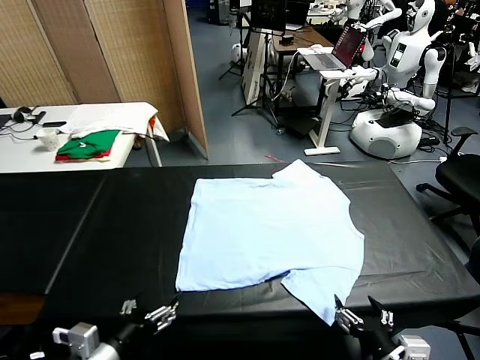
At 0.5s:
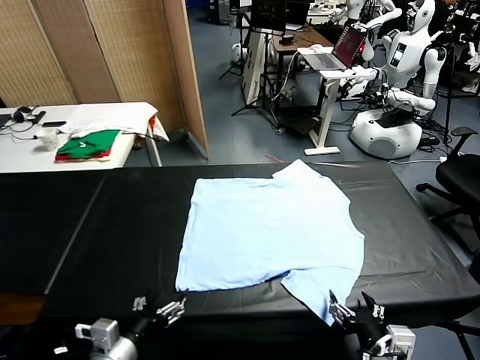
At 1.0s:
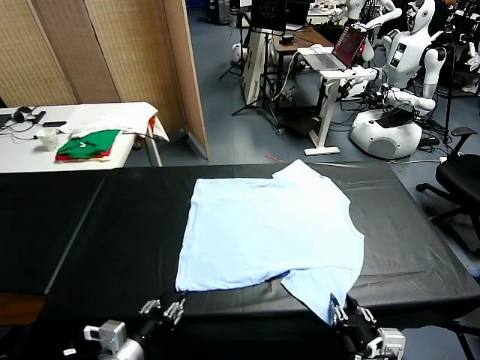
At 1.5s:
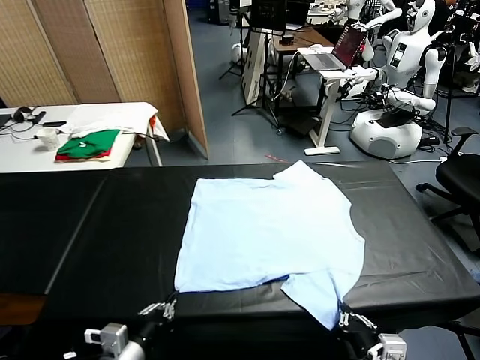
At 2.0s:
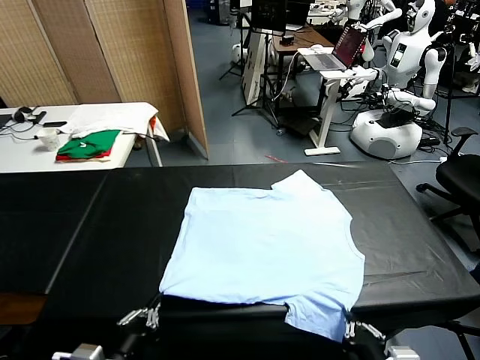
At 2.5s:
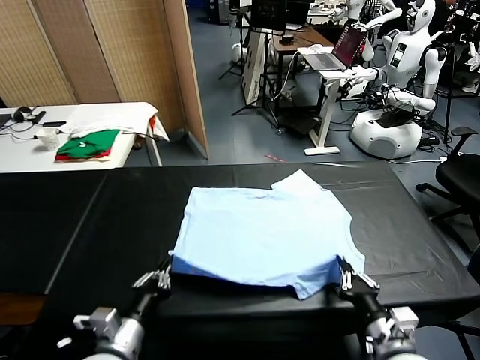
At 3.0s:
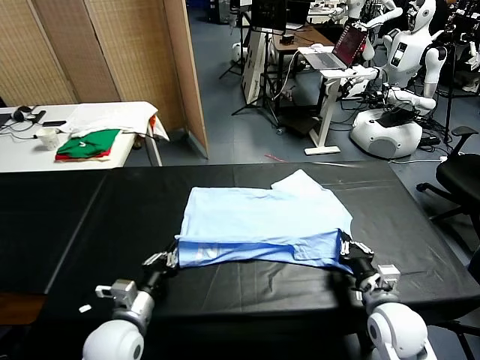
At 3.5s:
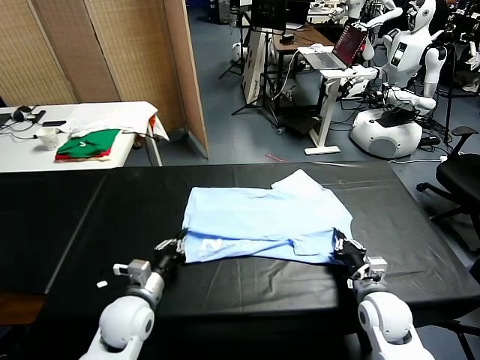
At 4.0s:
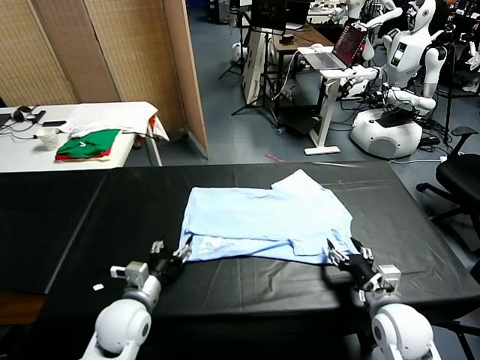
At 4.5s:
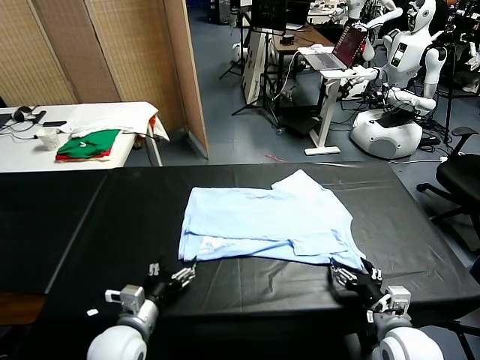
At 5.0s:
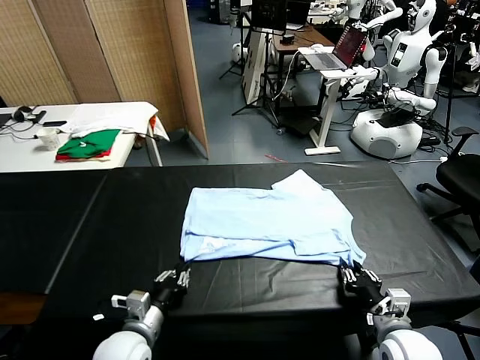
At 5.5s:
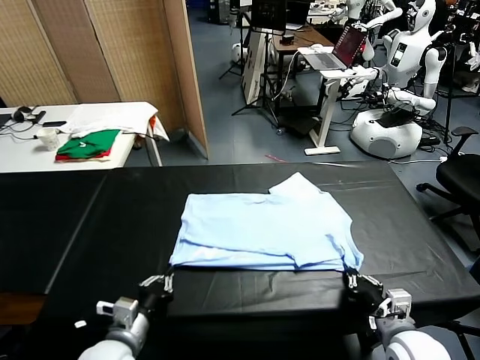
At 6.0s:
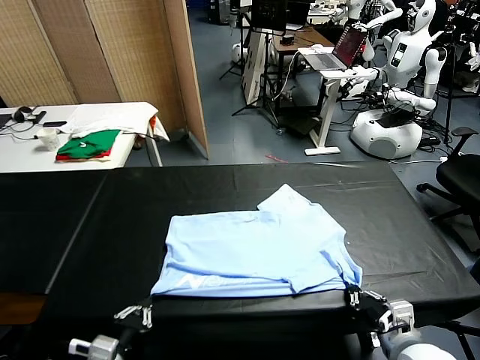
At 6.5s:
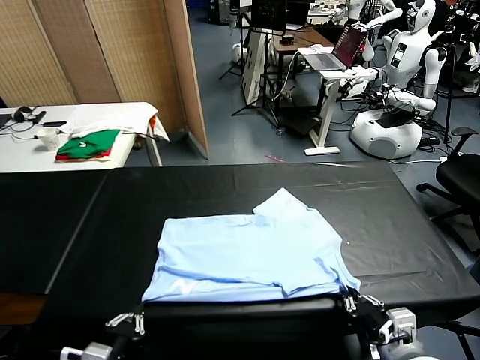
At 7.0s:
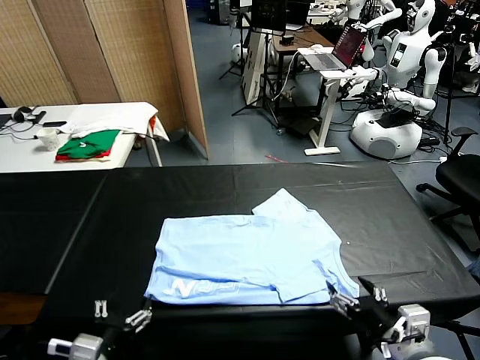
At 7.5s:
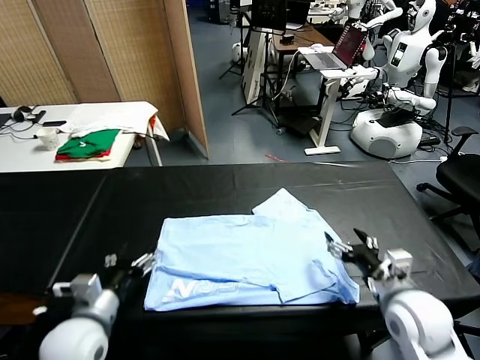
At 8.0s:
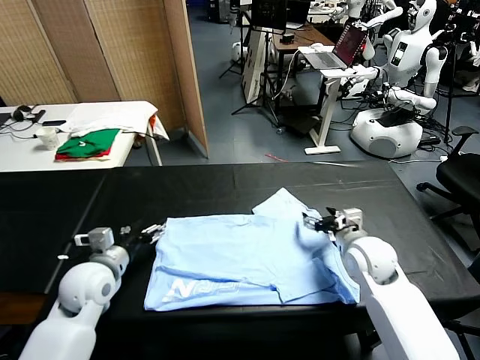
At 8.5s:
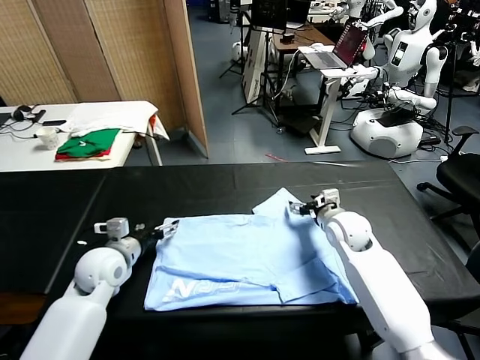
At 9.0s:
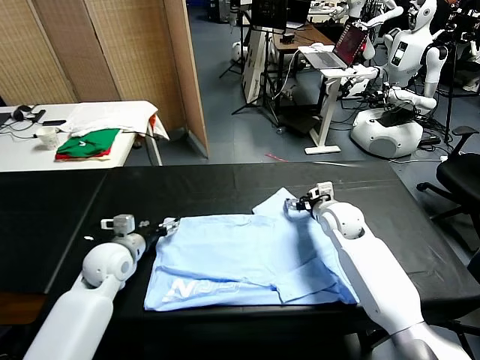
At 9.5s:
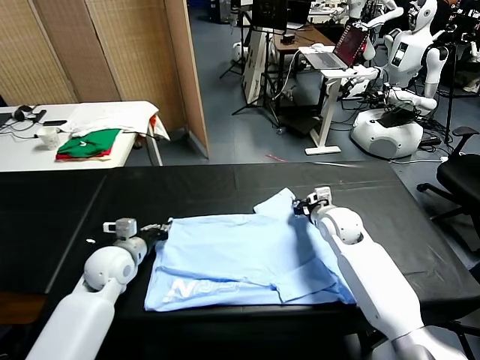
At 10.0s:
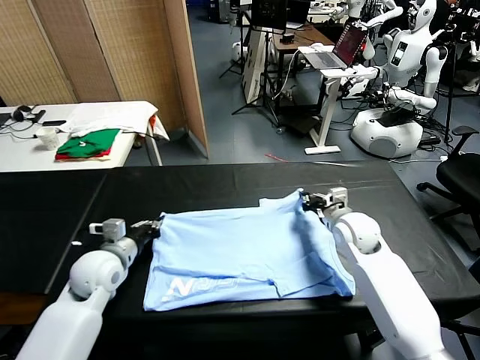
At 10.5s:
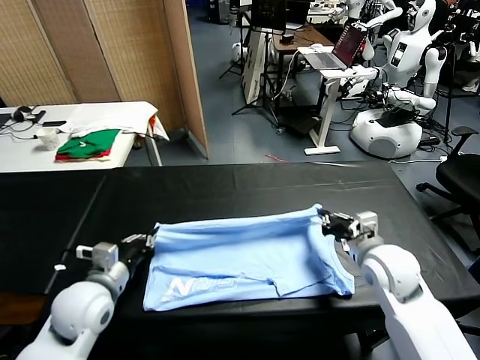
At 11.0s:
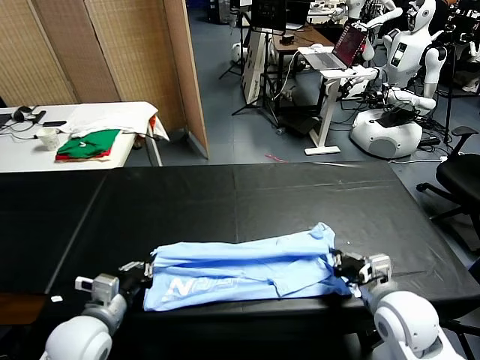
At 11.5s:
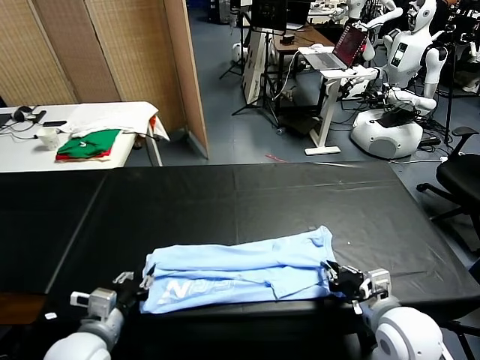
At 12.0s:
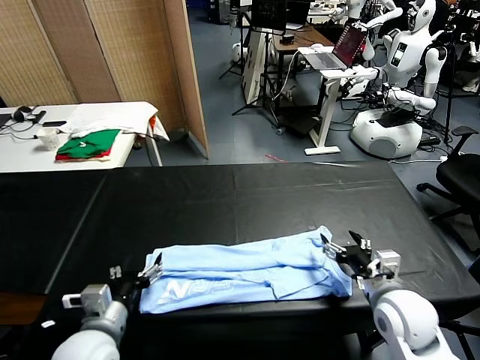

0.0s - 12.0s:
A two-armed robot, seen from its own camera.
Task of the whole recording: fold and organize the clothes.
Step, 0.0s - 1.0s: use both grippers simultaneously to clamp the lower edge of the clothing fabric.
Step, 1.5s - 4.0s: use both grippers to drag the lower edge of the fabric forward and fold it over the upper edge.
Step, 4.5s - 6.5s: Drag the clothes downward with both gripper.
Step, 7.0s - 9.5s: use both grippers simultaneously to clamp the upper edge of the clothing fabric.
Step, 10.0s - 11.5s: use both grippers to drag the upper edge of the fabric backward and fold it over the lower edge.
2.0s - 4.0s: The right gripper is displaced forward, downward and to the right by about 15 cm, and opens up, while the left gripper is displaced forward and downward by some 15 cm, and opens.
4.0s - 6.0s: The right gripper goes roughly 10 cm backward and upward, and closes up; the left gripper moves backward, roughly 15 cm, and closes.
6.0s - 8.0s: Both grippers move forward, approximately 25 cm. The left gripper opens its fingers. The right gripper opens its fingers.
8.0s - 10.0s: The left gripper closes up. Meanwhile the right gripper travels backward by roughly 5 cm, and closes up.
10.0s - 12.0s: The grippers both shift backward by approximately 10 cm. The left gripper opens its fingers, while the right gripper opens up.

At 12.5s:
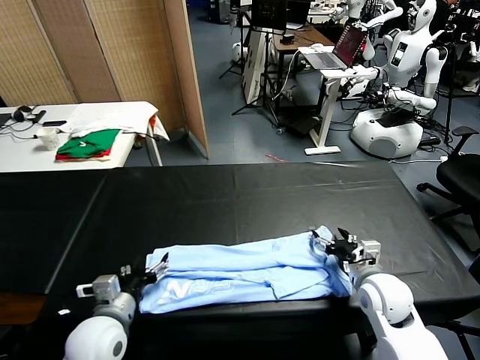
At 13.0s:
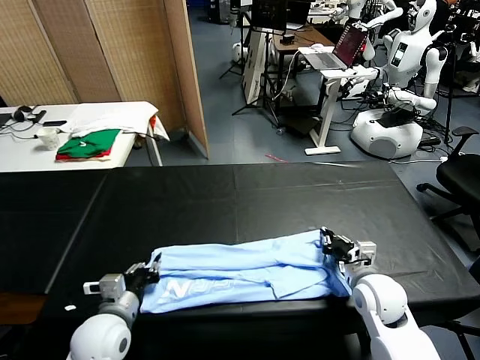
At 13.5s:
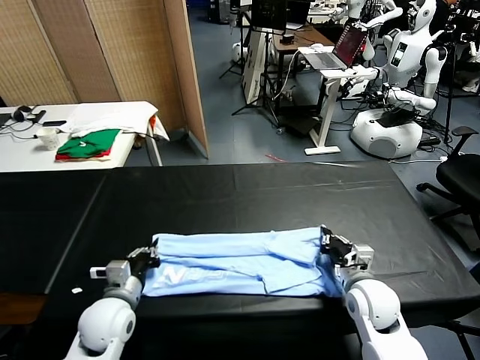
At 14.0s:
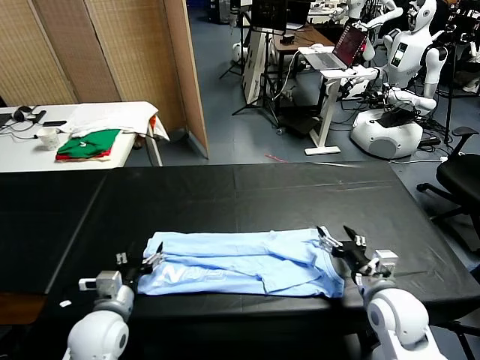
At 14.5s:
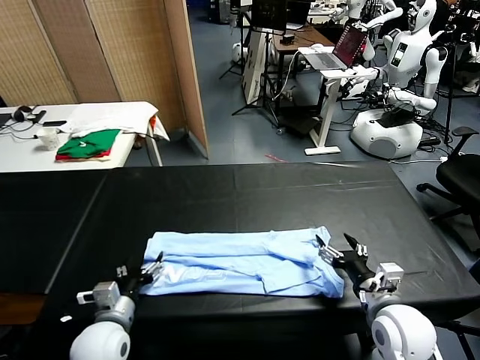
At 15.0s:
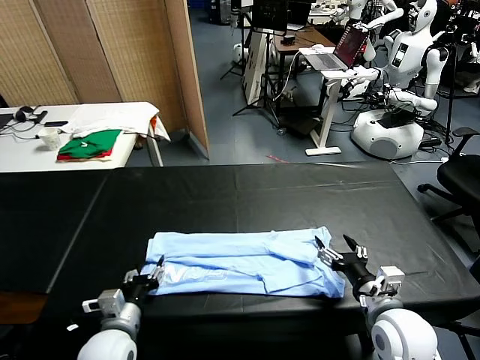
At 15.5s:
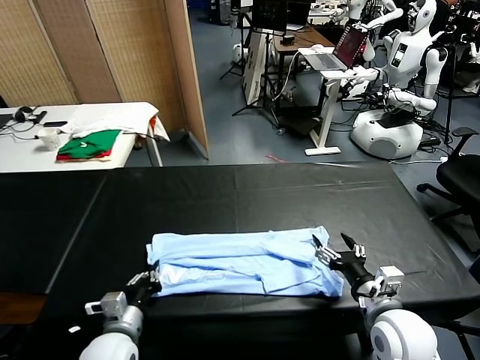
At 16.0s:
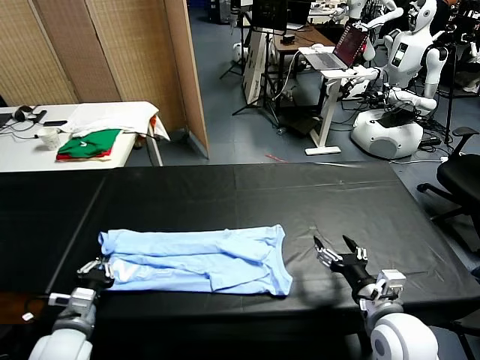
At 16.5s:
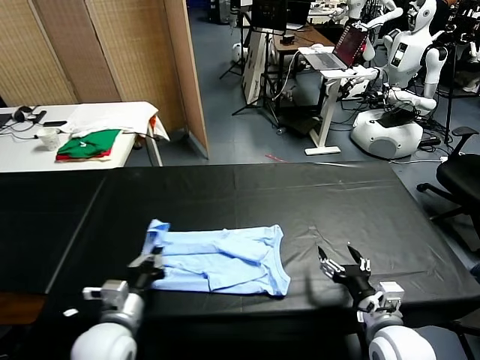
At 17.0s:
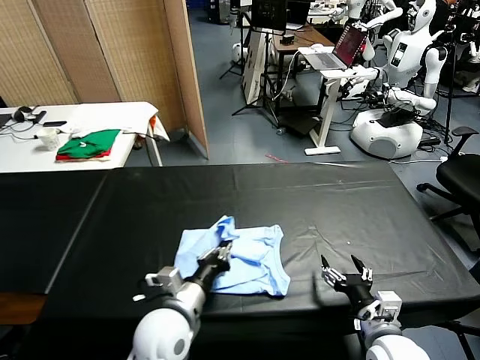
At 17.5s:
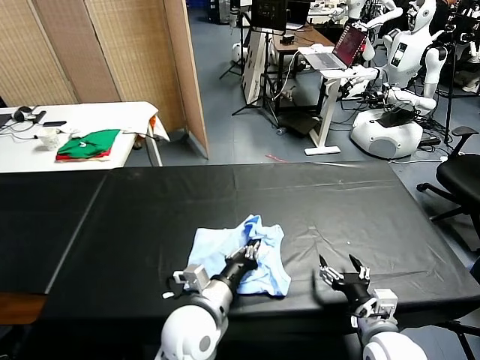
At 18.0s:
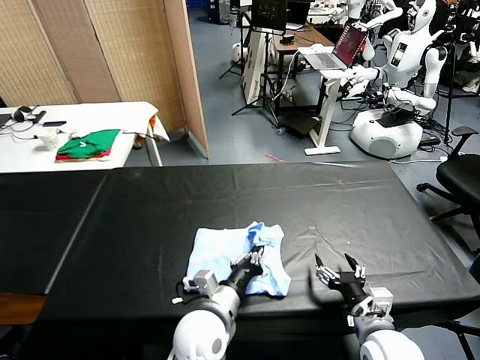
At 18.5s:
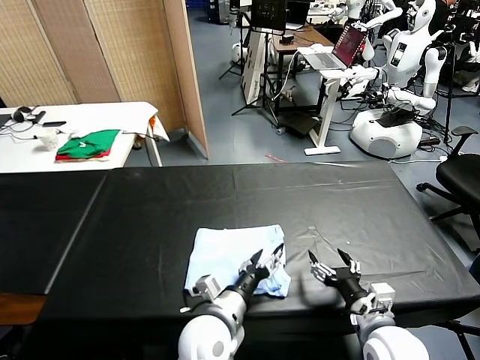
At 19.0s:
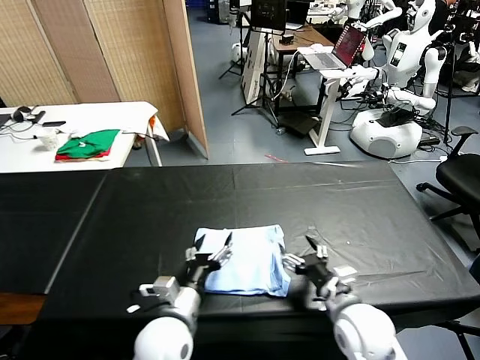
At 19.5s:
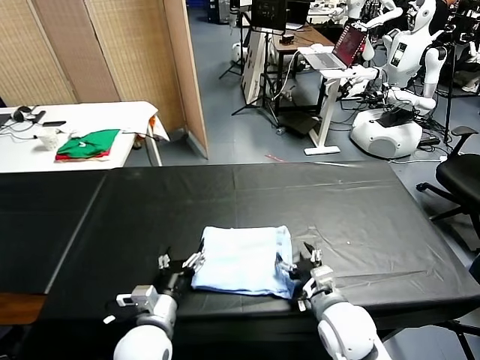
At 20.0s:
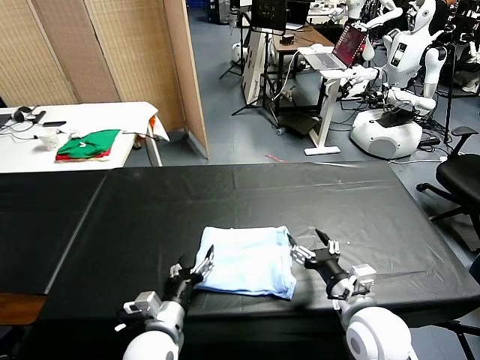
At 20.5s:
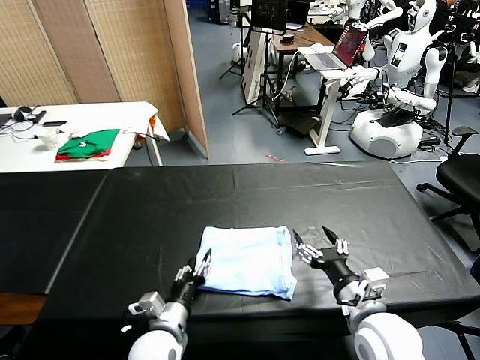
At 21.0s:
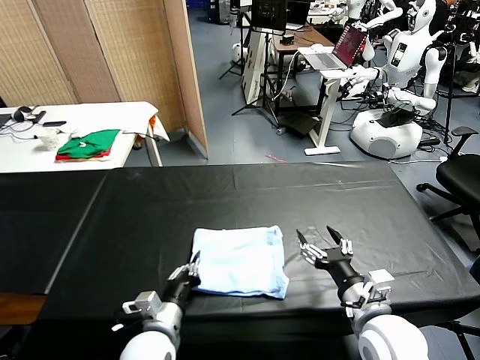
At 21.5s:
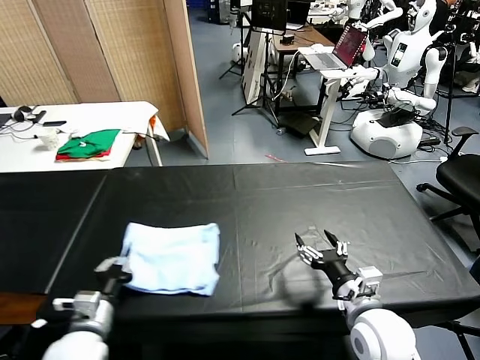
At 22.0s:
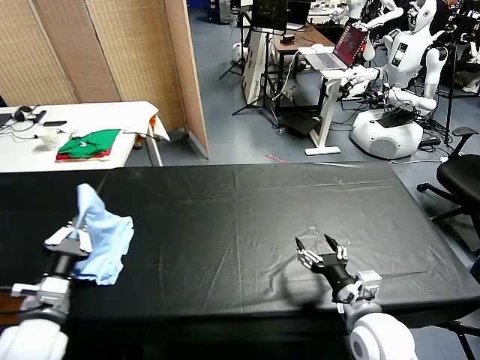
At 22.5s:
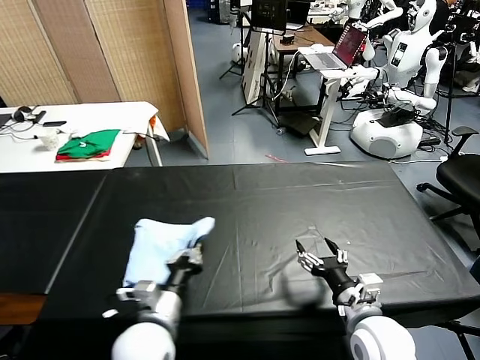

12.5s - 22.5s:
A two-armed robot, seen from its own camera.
Task of the whole recording: fold and organize the clothes.
Step, 12.5s - 15.0s: use the left gripper to clamp the left edge of the fabric.
Step, 15.5s - 18.5s: use the left gripper to drag the left edge of the fabric to the left and folds it over the right edge.
12.5s - 14.5s: The right gripper moves backward, about 10 cm, and closes and opens again. Meanwhile the left gripper closes and opens again.
14.5s - 16.5s: The left gripper changes place by roughly 5 cm, and closes.
16.5s - 18.5s: The left gripper heads to the right, covering about 15 cm, and opens up.
18.5s - 20.5s: The left gripper heads to the left and downward, covering some 10 cm.
20.5s - 22.5s: The left gripper shifts approximately 10 cm upward, goes to the left and returns, approximately 15 cm each way, and closes up.

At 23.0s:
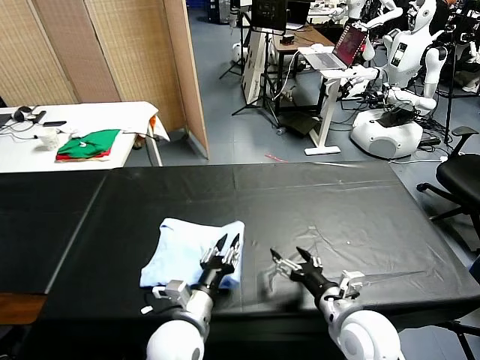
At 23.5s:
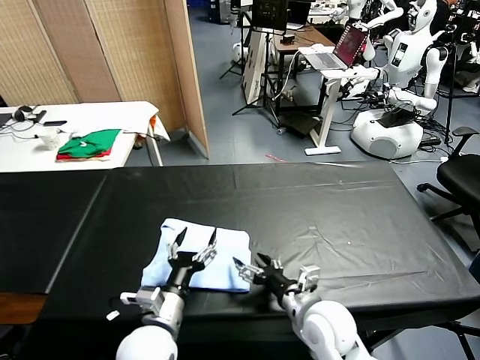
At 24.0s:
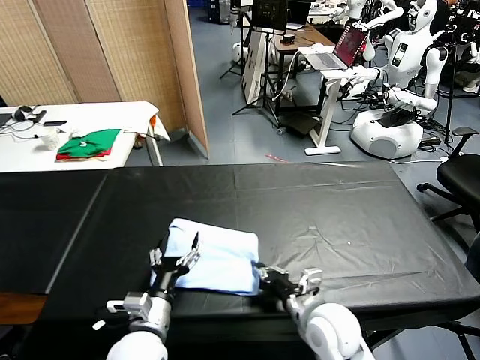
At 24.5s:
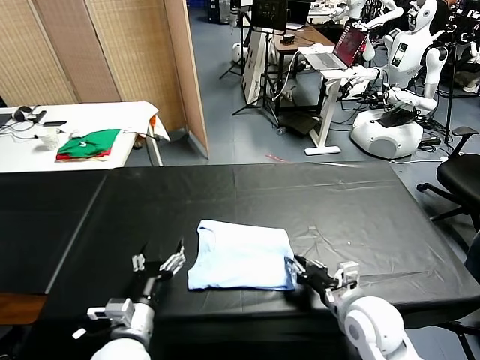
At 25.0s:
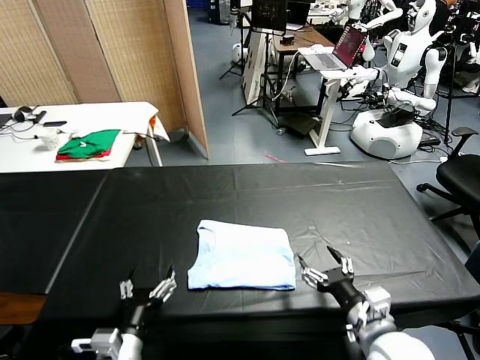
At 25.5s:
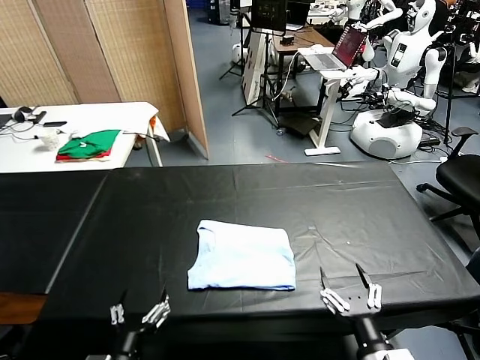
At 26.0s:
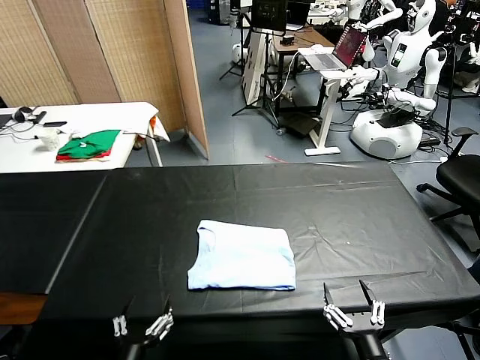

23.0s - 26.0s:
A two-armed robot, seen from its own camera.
Task of the whole recording: fold and organize the clothes.
Step, 23.5s - 25.0s: Drag the clothes to the center of the table.
23.0s - 24.5s: The left gripper moves to the left, about 10 cm, and opens up; the right gripper goes to the left and returns, roughly 5 cm each way, and closes up.
24.5s - 26.0s: Both grippers travel together backward, some 15 cm. The right gripper opens.
